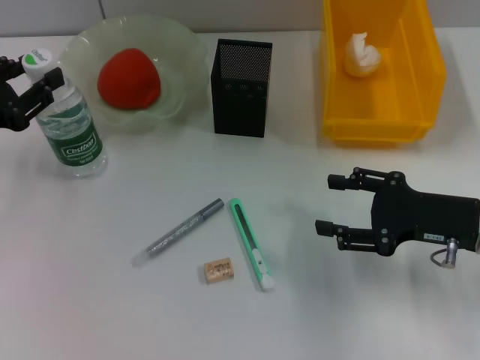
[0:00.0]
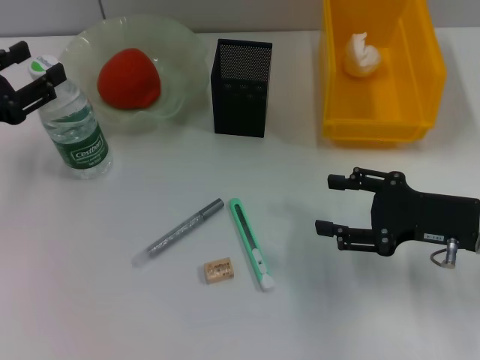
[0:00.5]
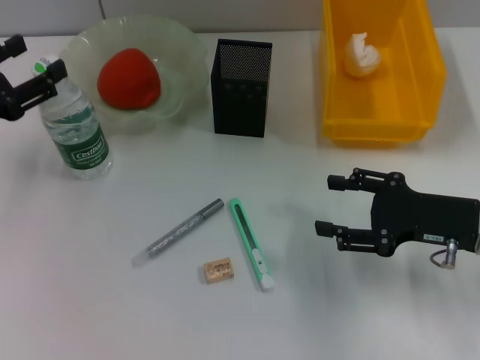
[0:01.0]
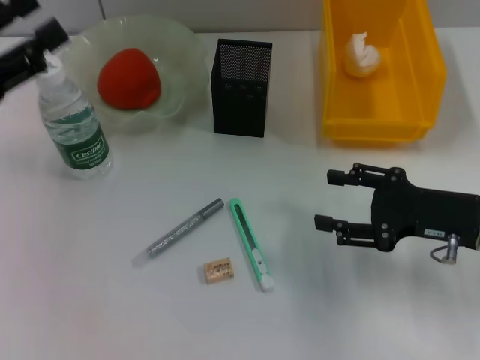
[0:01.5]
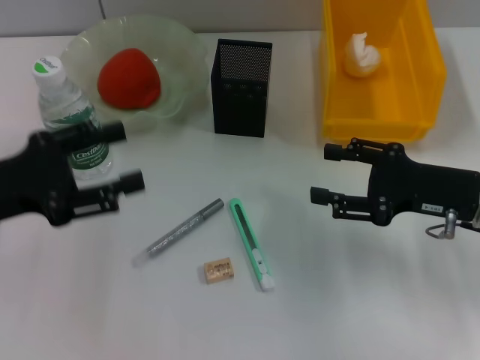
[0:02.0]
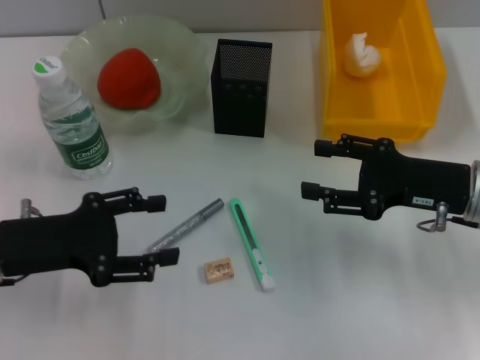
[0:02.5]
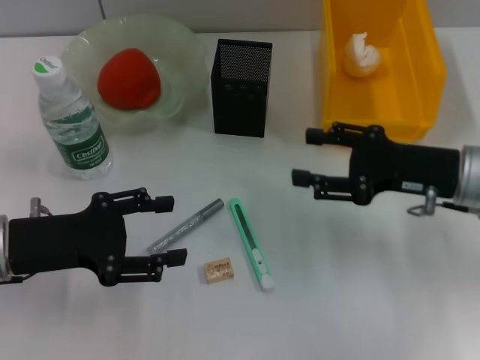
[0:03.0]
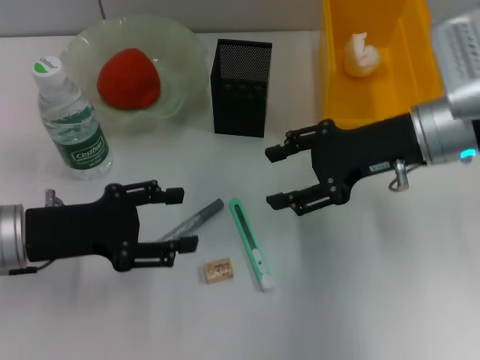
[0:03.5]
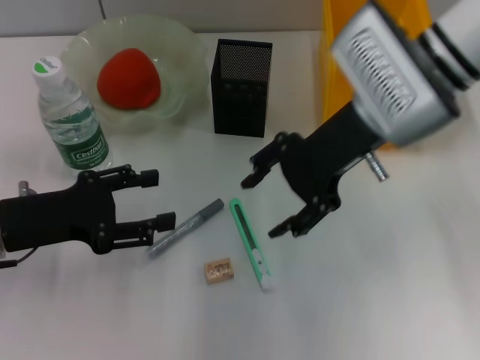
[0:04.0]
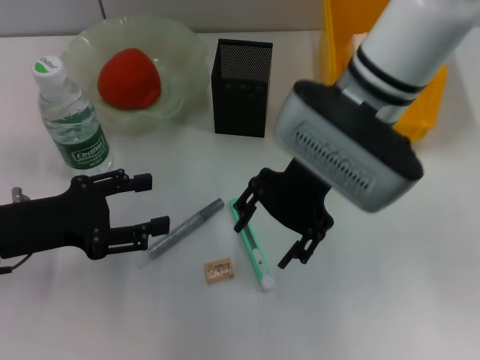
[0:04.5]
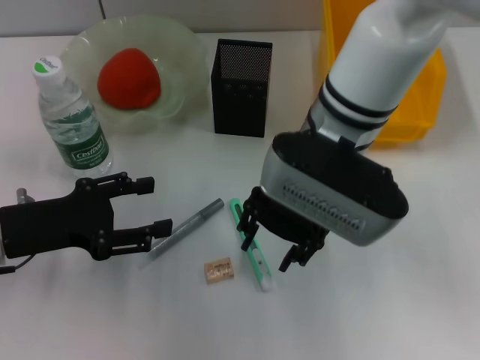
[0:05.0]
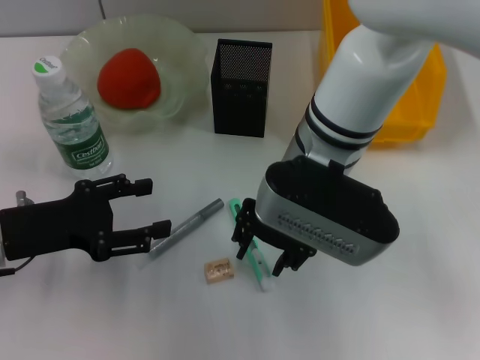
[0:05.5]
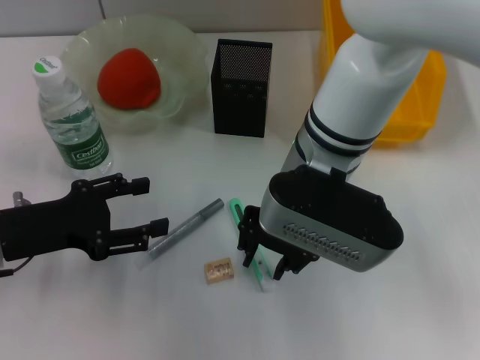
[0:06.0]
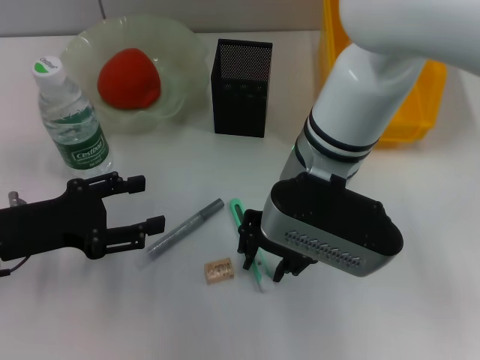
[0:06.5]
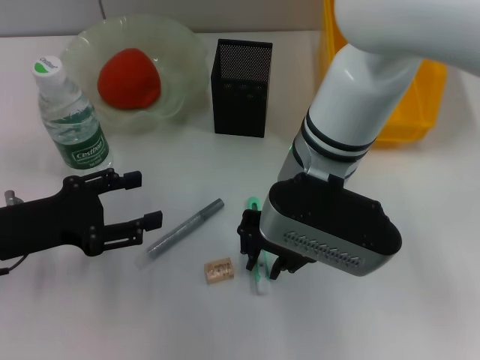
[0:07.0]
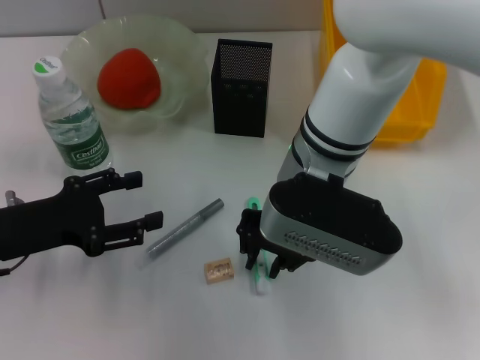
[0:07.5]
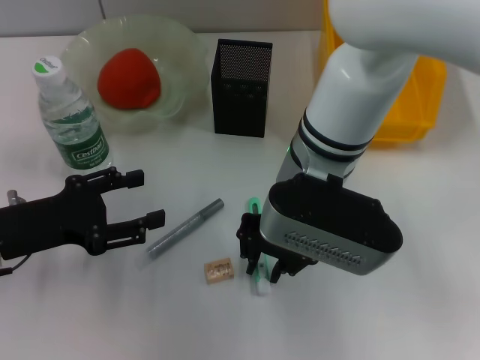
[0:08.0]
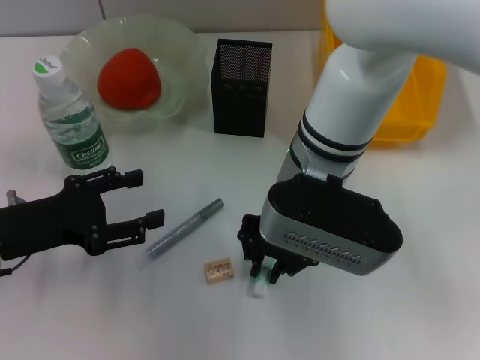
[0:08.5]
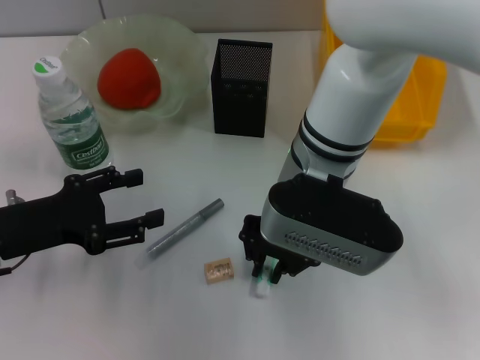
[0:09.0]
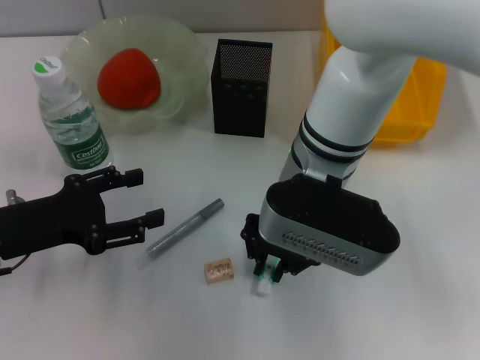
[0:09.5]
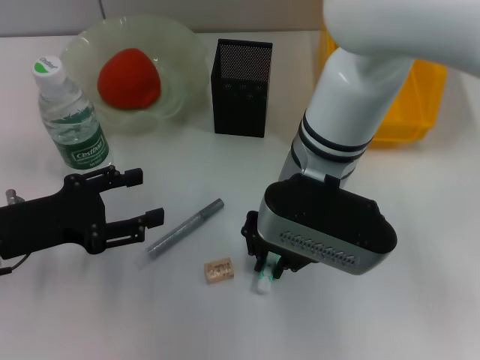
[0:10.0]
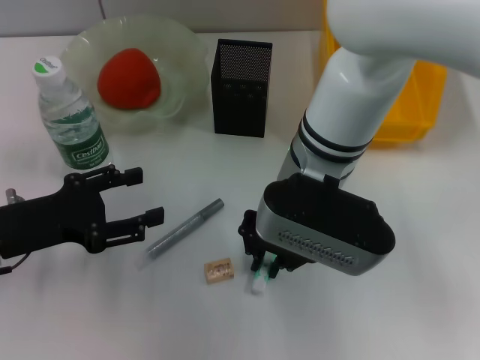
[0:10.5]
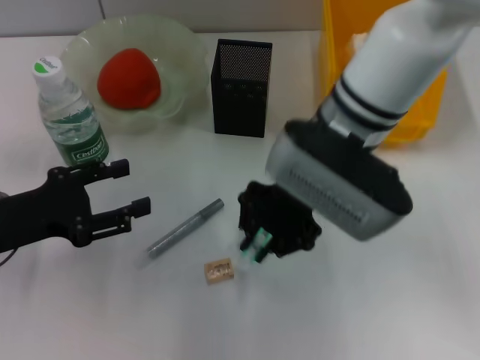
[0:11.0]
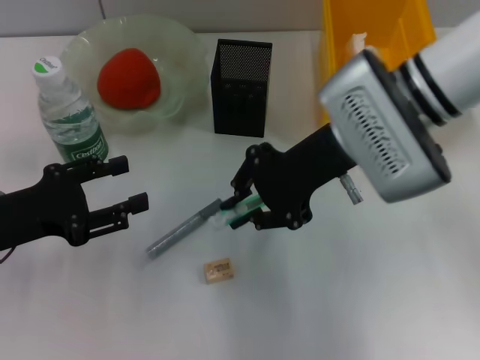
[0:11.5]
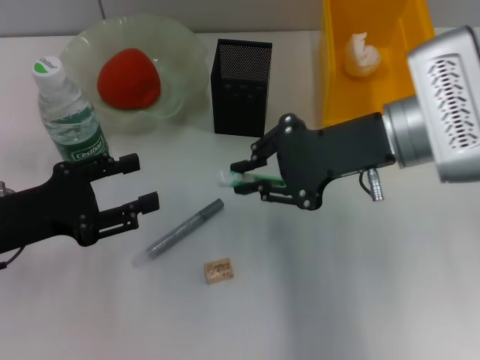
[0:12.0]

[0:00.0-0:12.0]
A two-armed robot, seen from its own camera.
Step, 0:01.0 to 0:10.0: Grab the blue utility knife with the right hand.
0:00.0 to 0:02.0: The left gripper ends up roughly 5 cm from where it was, and opens its fingers.
0:02.0 to 0:04.0: The right gripper heads to the left, upward and forward, covering some 20 cm.
0:04.0 to 0:06.0: The right gripper moves to the left, approximately 10 cm.
0:06.0 to 0:10.0: The two grippers keep their place.
0:10.0 to 0:12.0: The right gripper shifts approximately 10 cm to the right.

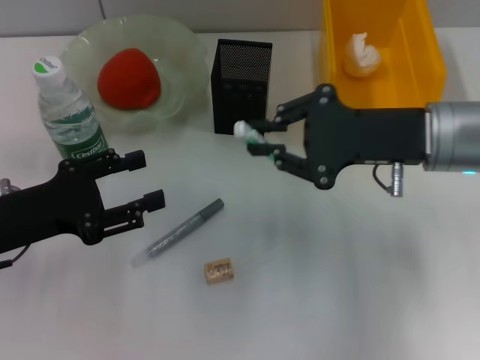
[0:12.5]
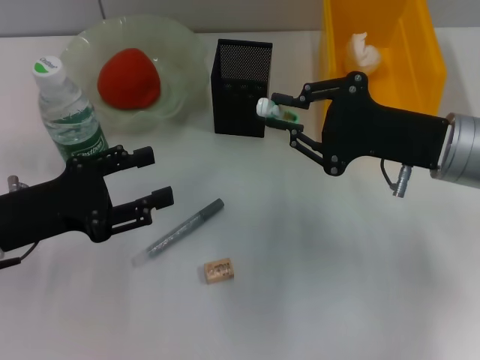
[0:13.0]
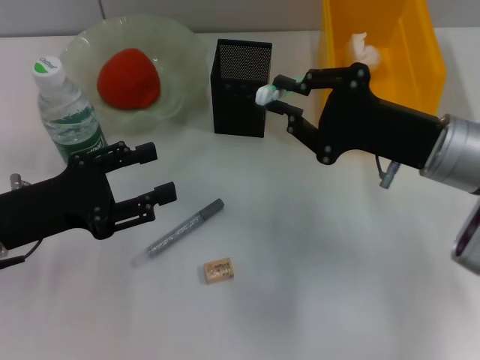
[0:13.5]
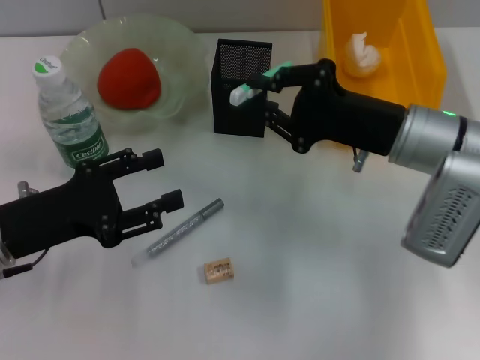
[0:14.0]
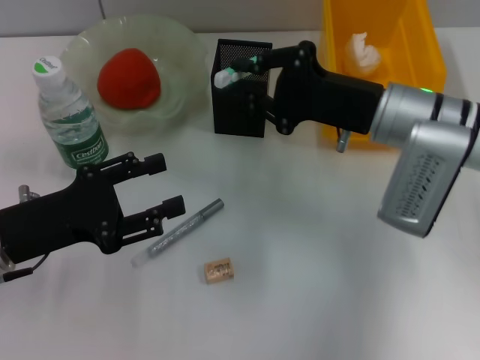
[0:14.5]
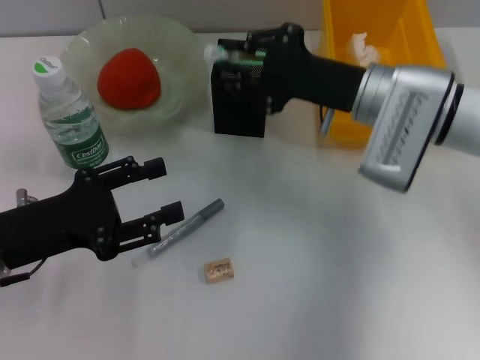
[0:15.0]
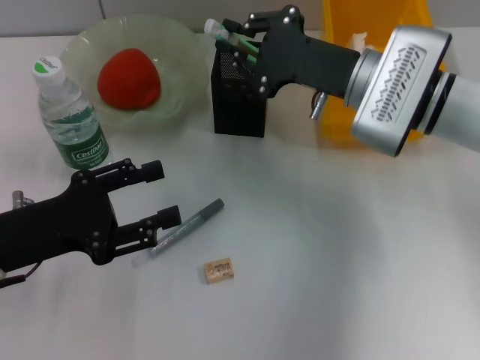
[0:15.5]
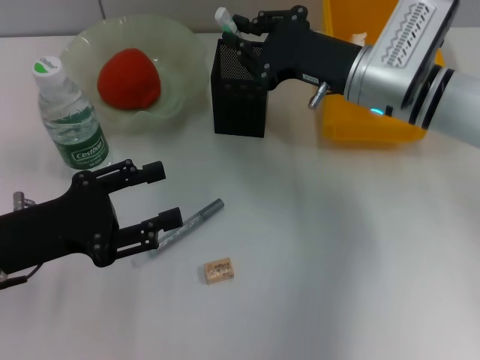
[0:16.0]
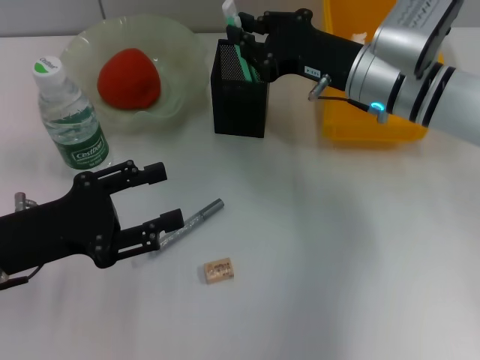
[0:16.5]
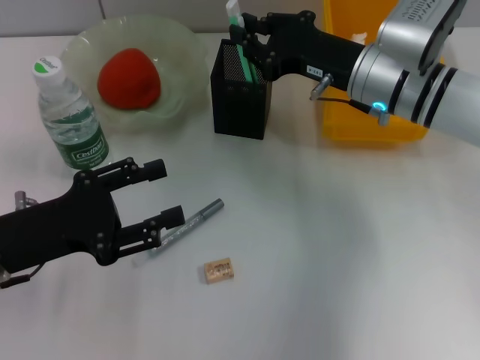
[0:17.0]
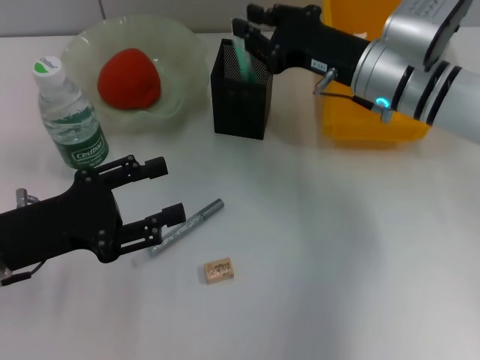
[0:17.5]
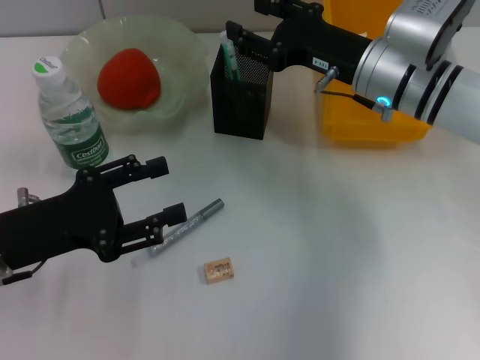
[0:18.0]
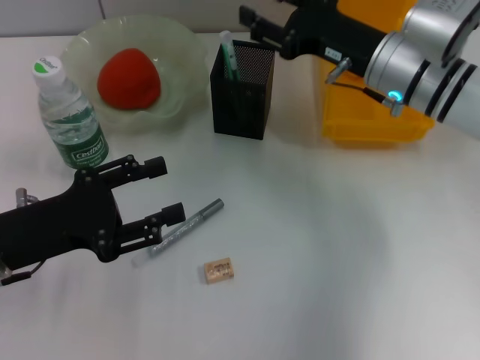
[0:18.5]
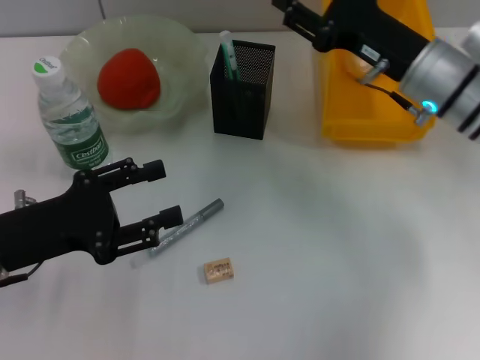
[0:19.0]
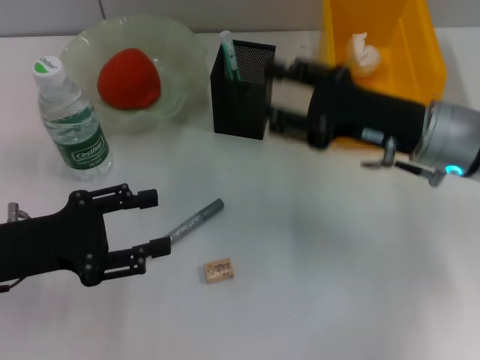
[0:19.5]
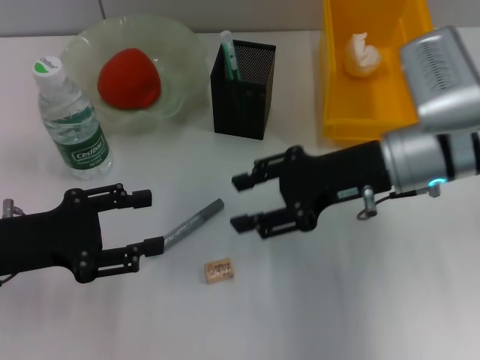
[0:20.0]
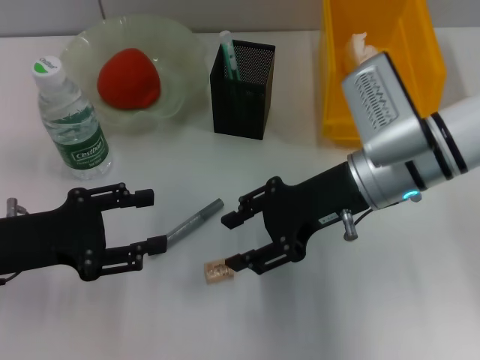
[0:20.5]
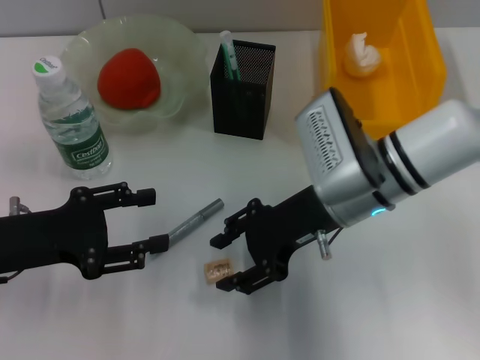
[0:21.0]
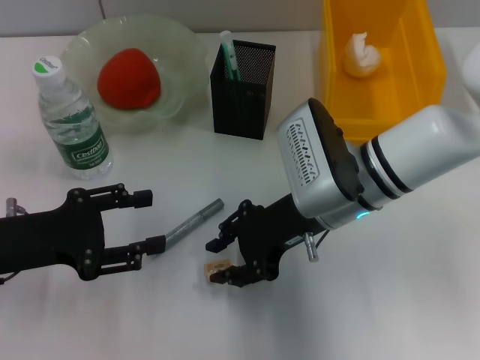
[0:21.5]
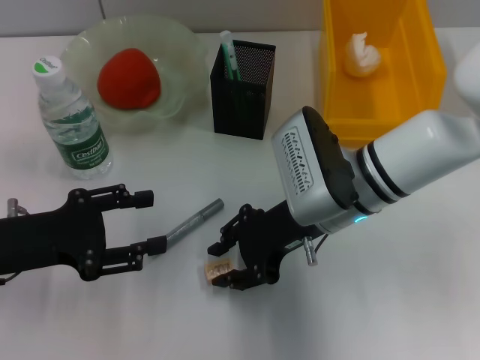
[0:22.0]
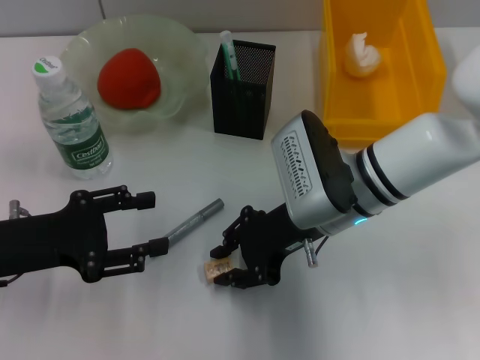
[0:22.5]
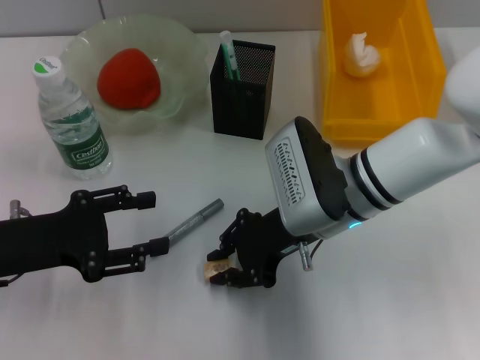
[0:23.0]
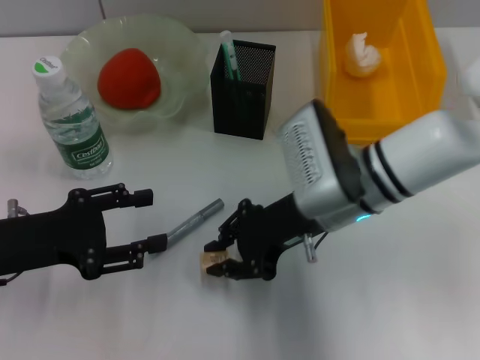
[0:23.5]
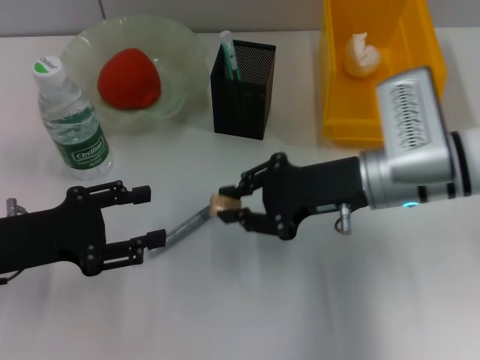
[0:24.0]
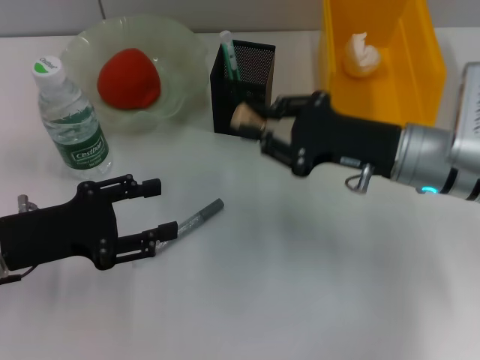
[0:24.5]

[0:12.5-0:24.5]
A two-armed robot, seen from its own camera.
Step, 0:12.5 to 0:18.0: Place the blue utility knife into the pen holder with the right hand.
Step, 0:18.5 to 0:23.0: Grab the eraser with the right hand.
0:12.5 to 0:14.5: The right gripper ends up about 5 cm from where it was.
0:16.5 to 0:18.5: The right gripper opens up.
0:18.5 to 0:20.5: The right gripper goes some 5 cm backward.
0:20.5 to 0:22.5: The right gripper moves about 5 cm, and closes.
0:22.5 to 0:24.5: The right gripper travels to the right by some 10 cm.

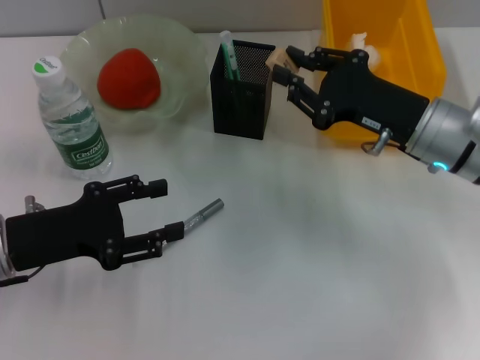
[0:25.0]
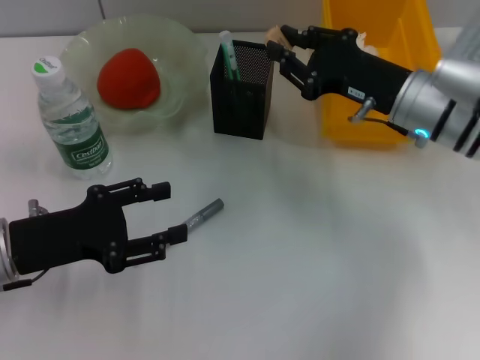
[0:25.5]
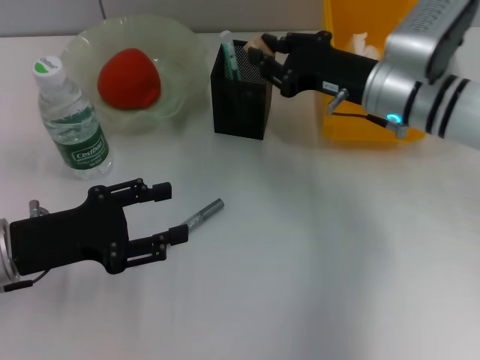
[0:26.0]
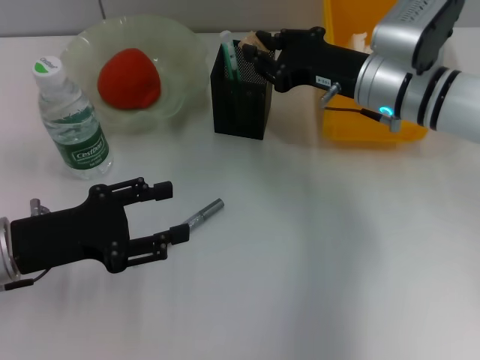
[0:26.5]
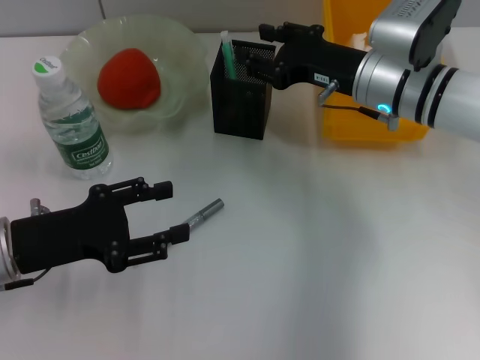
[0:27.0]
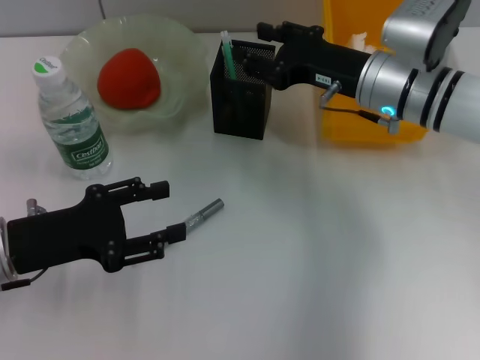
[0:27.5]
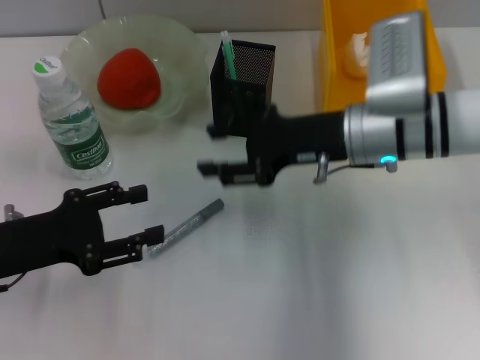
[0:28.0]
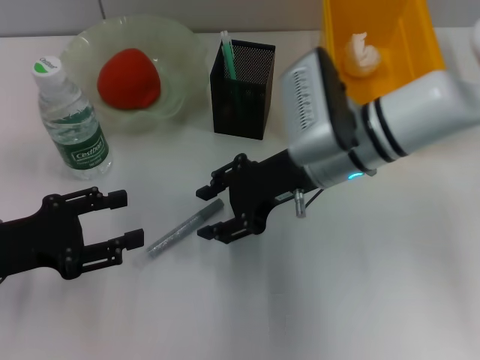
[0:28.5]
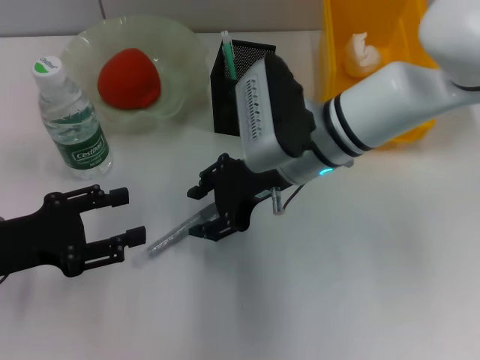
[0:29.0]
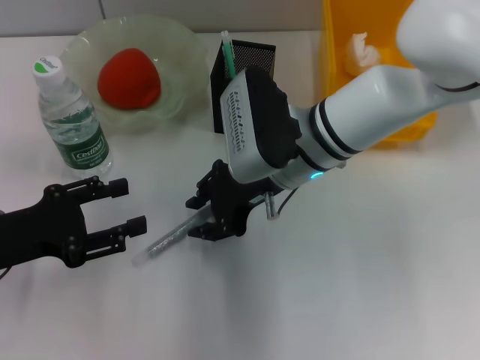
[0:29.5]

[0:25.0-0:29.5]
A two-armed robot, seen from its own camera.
Step, 0:25.0 to 0:27.0: Put the eraser into the pen holder with the right hand.
0:25.0 to 0:27.0: The right gripper moves forward, approximately 5 cm.
0:27.0 to 0:29.5: The right gripper travels to the left by some 10 cm.
